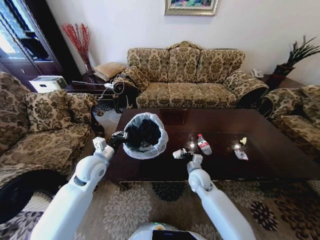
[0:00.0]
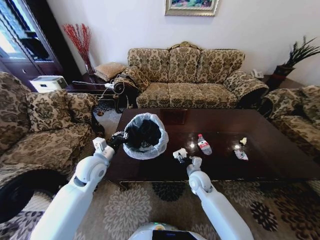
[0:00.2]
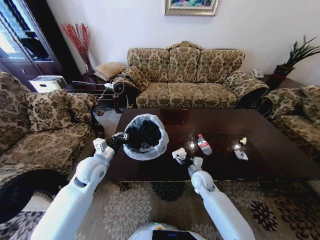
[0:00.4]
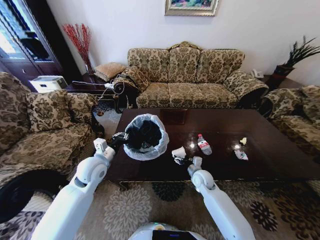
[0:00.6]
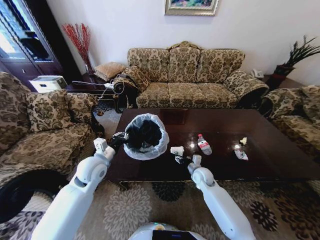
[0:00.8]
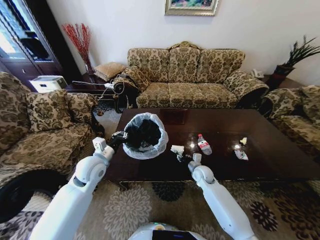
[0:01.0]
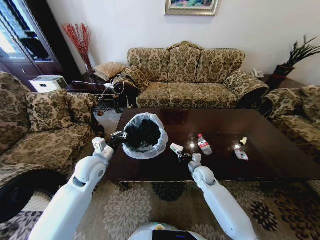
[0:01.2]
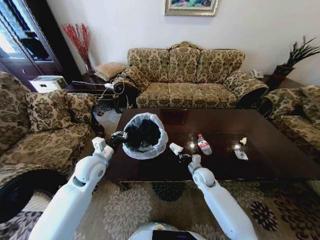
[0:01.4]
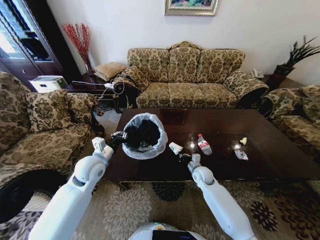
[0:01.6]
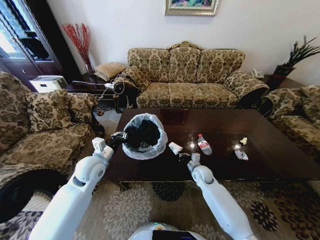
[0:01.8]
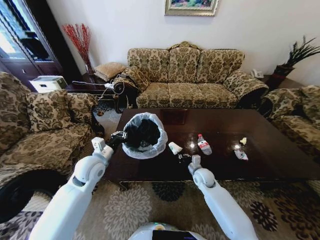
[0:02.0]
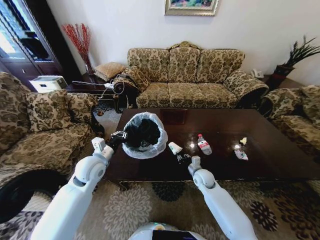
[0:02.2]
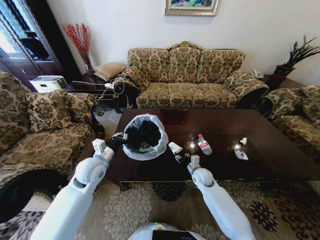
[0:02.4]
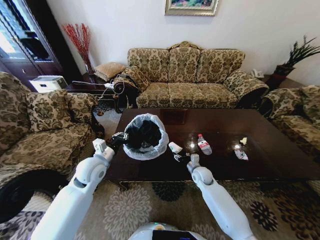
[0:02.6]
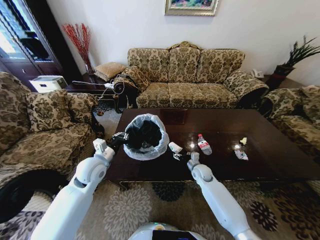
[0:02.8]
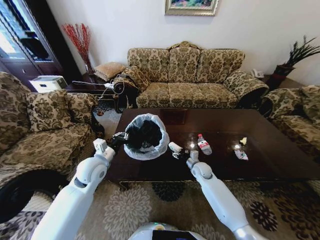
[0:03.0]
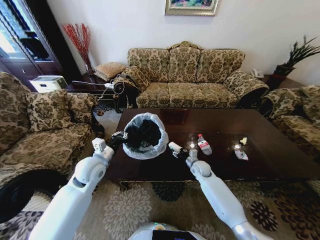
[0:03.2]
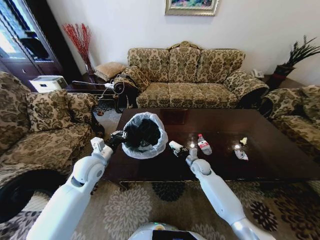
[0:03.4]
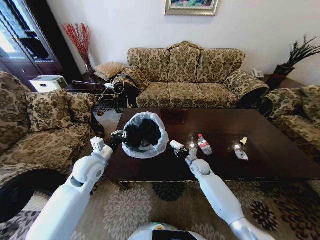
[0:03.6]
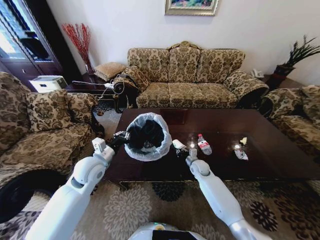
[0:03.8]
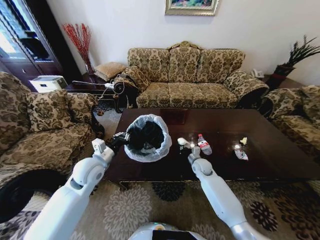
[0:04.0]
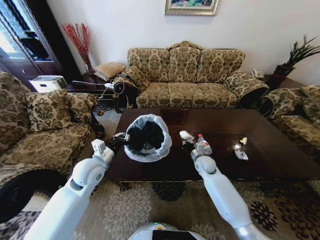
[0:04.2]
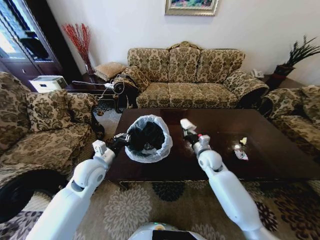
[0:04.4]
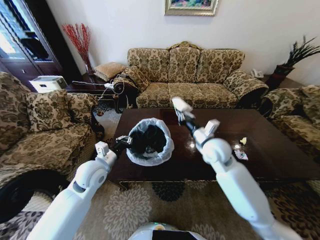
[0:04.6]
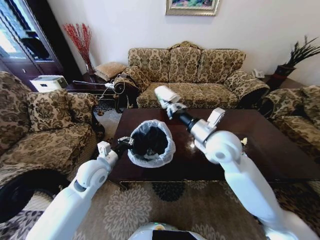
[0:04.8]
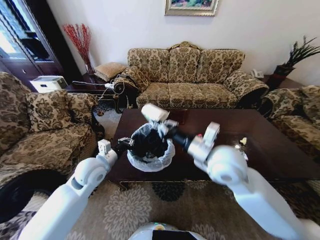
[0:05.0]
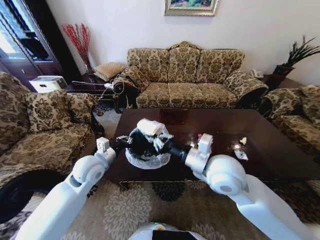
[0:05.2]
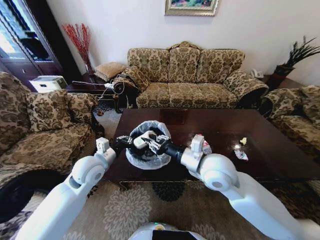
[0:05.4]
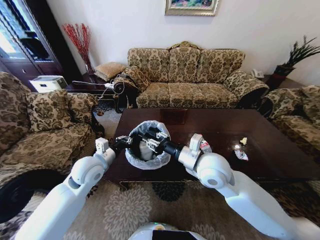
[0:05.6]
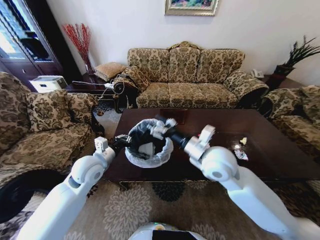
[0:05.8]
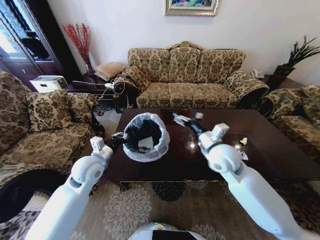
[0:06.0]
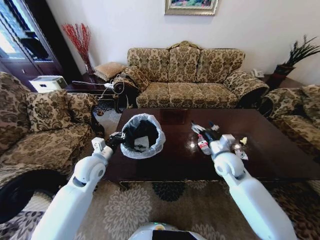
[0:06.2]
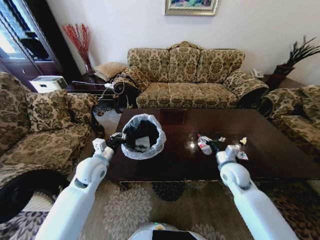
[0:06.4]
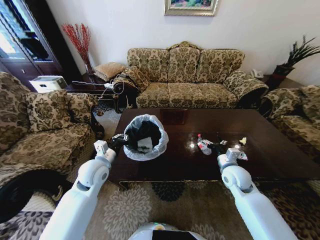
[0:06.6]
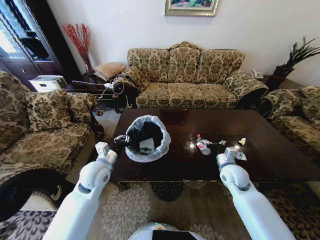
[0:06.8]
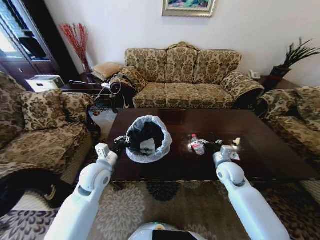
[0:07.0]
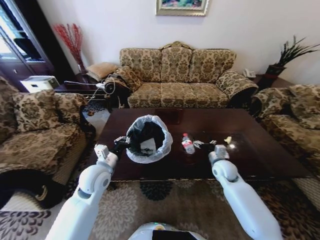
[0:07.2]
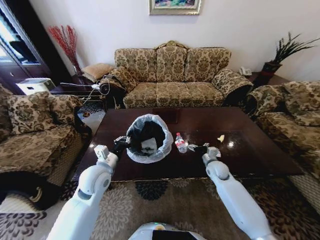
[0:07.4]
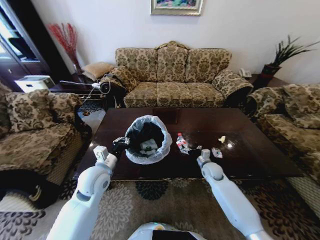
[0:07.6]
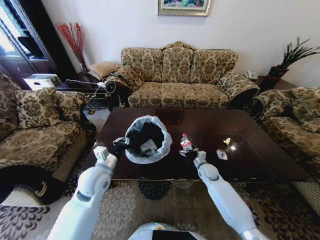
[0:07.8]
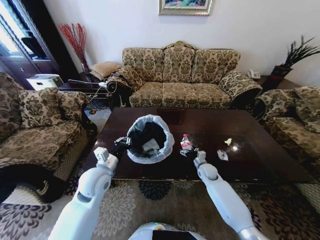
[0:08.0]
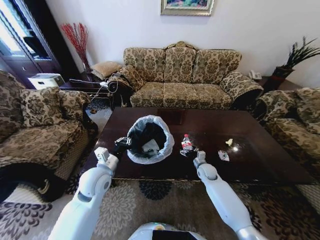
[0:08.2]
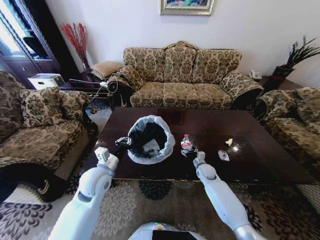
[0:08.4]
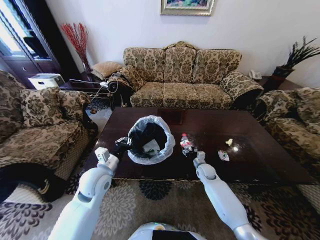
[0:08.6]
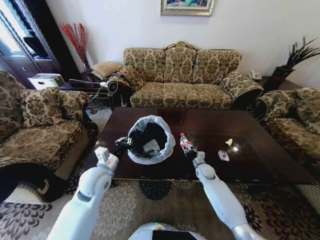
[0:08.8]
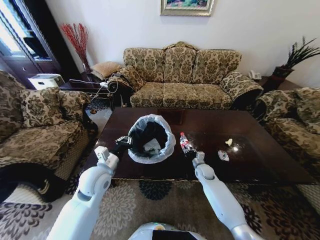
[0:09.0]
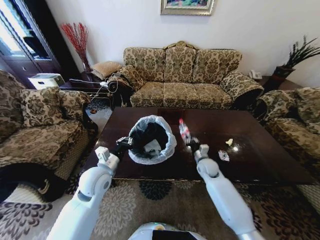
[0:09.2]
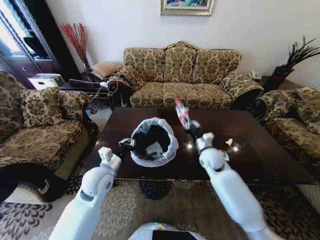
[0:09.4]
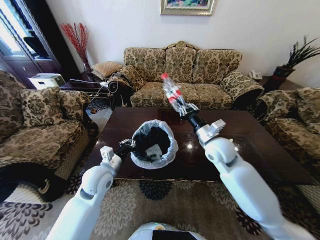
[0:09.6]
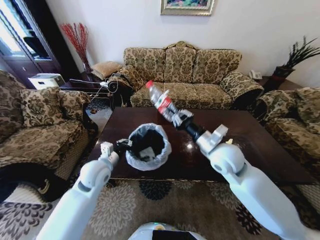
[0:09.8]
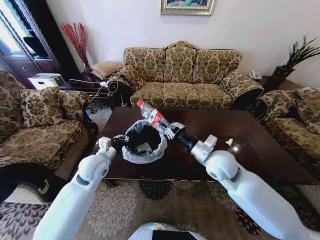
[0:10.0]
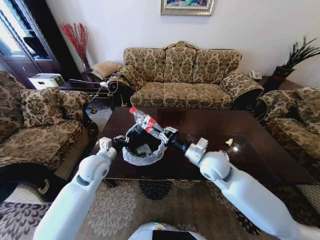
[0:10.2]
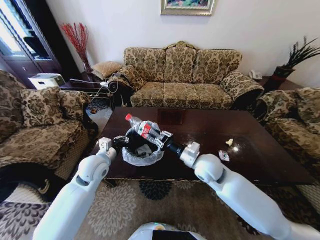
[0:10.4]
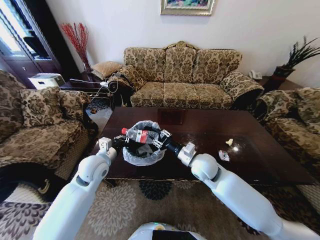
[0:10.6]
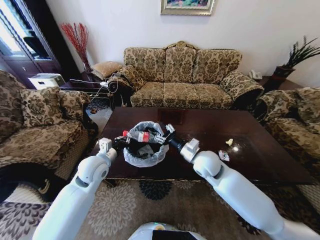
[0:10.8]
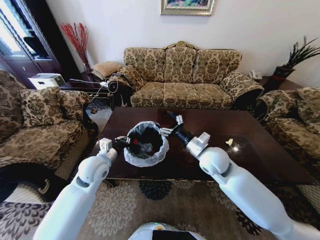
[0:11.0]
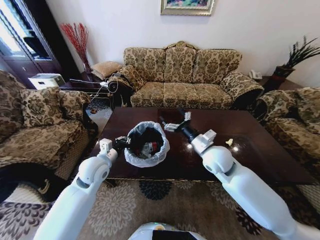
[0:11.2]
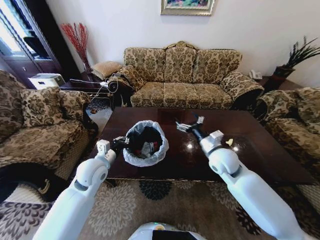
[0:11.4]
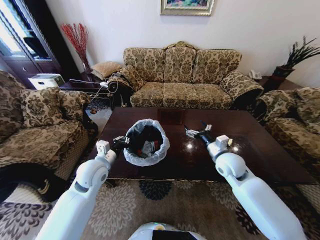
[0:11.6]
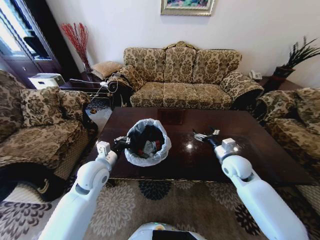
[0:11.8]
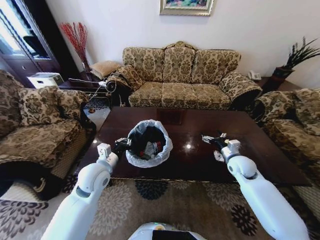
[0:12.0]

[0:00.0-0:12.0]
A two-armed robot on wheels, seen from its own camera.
Task of the whole recording: Move to the front of the table and place the trash on the table into the trash bin.
0:00.0 to 0:01.6: The right gripper shifts by roughly 5 cm, and opens and closes again.
0:01.6 to 0:03.0: The right gripper opens up.
0:03.0 to 0:04.4: The right gripper heads upward, covering roughly 15 cm, and closes its fingers.
0:04.4 to 0:06.0: The right gripper goes about 15 cm upward and backward, and opens its fingers.
0:06.0 to 0:07.6: The right gripper goes about 25 cm downward.
0:07.6 to 0:09.0: The right gripper shifts by some 5 cm, and closes up.
0:09.0 to 0:10.4: The right gripper travels upward and backward by roughly 25 cm.
0:10.4 to 0:12.0: The right gripper moves to the right, some 20 cm, and opens its fingers.

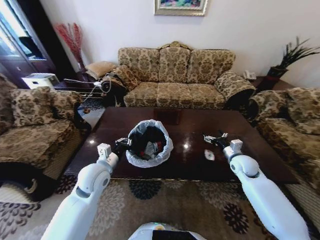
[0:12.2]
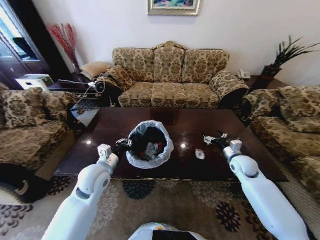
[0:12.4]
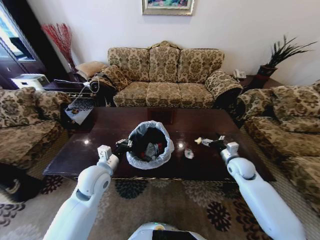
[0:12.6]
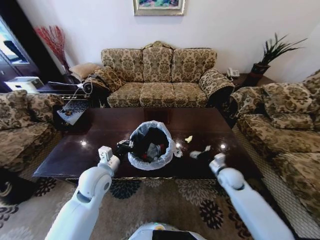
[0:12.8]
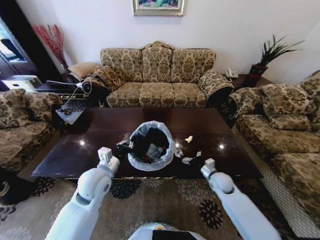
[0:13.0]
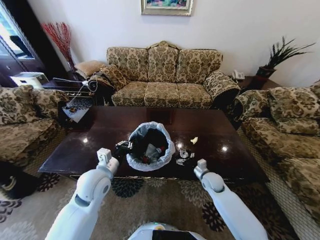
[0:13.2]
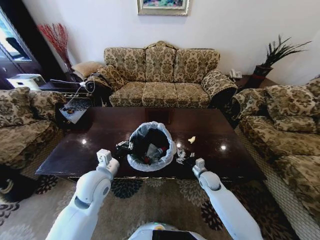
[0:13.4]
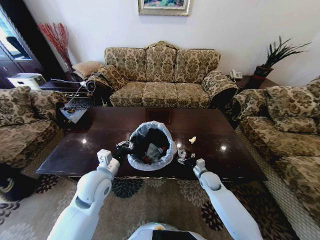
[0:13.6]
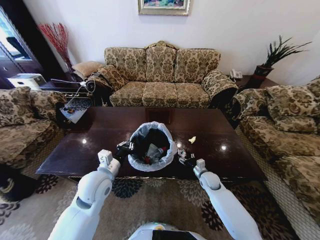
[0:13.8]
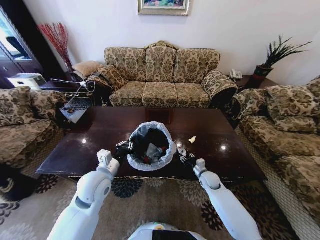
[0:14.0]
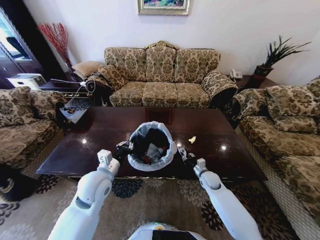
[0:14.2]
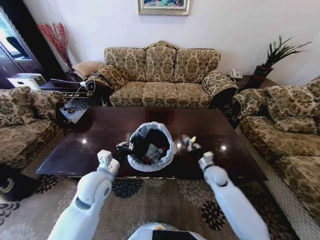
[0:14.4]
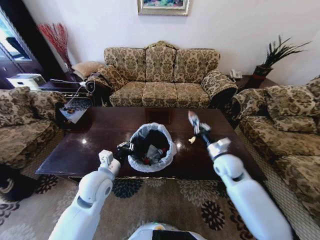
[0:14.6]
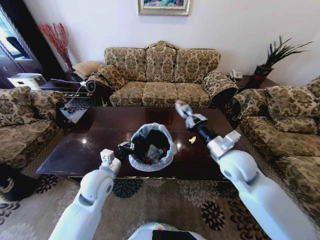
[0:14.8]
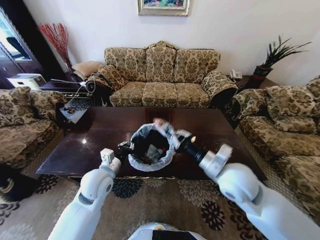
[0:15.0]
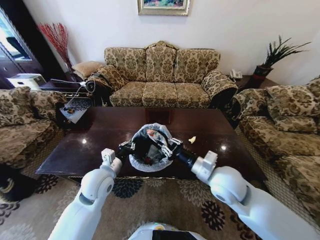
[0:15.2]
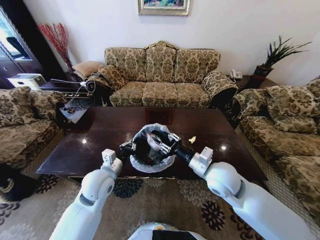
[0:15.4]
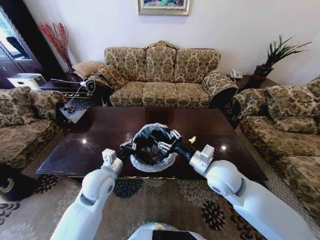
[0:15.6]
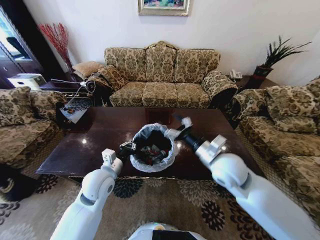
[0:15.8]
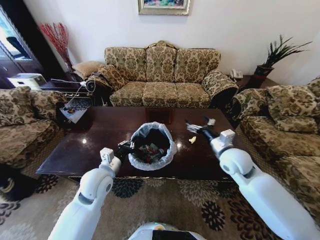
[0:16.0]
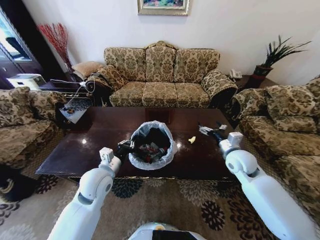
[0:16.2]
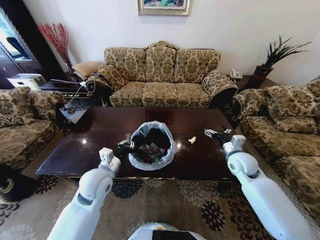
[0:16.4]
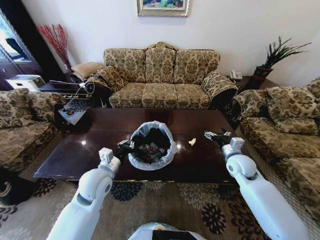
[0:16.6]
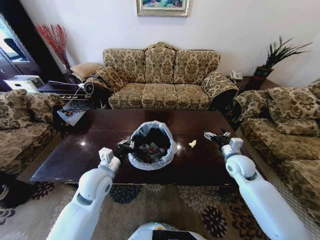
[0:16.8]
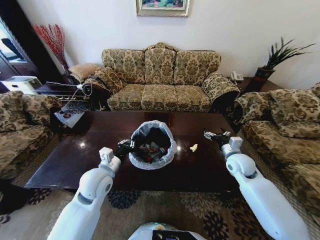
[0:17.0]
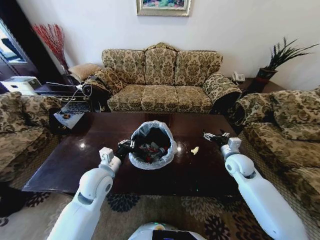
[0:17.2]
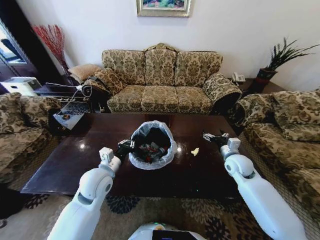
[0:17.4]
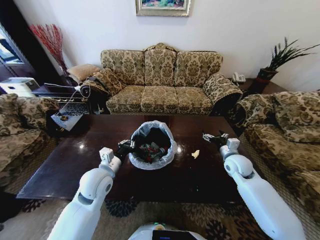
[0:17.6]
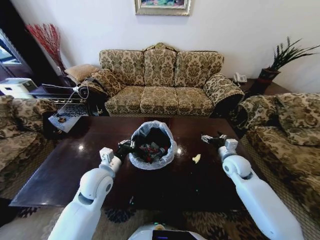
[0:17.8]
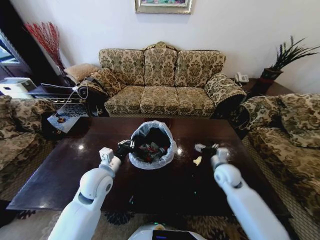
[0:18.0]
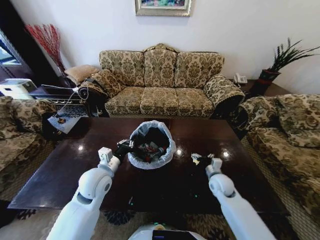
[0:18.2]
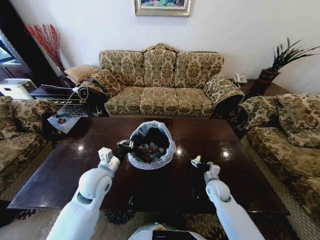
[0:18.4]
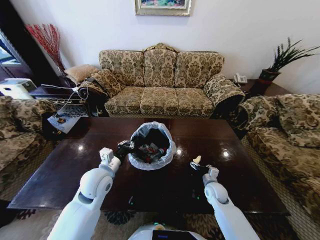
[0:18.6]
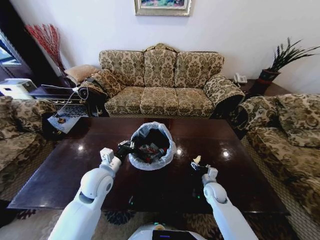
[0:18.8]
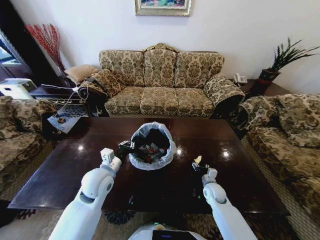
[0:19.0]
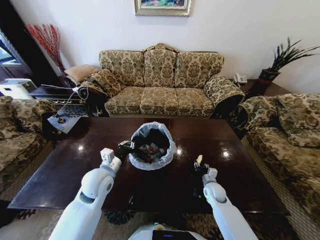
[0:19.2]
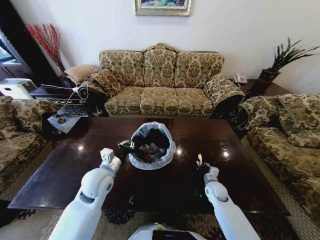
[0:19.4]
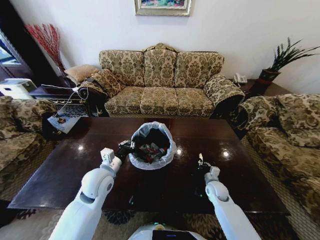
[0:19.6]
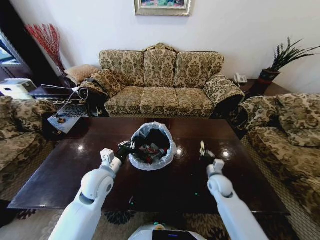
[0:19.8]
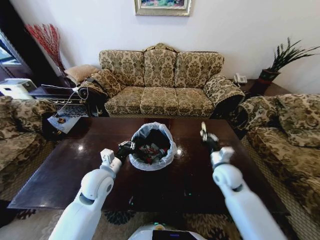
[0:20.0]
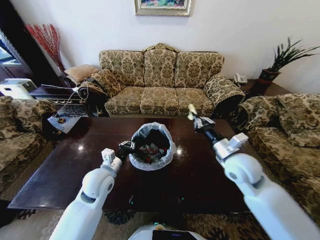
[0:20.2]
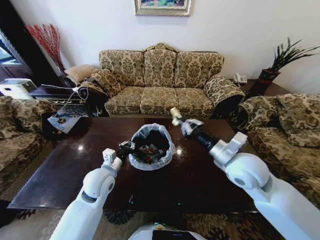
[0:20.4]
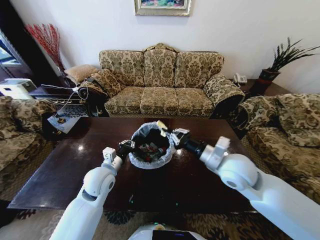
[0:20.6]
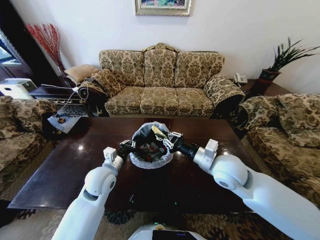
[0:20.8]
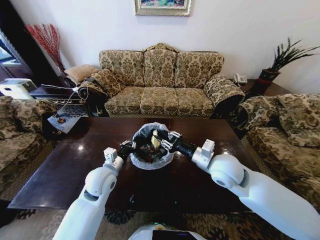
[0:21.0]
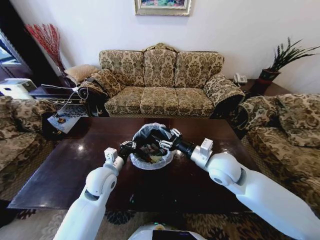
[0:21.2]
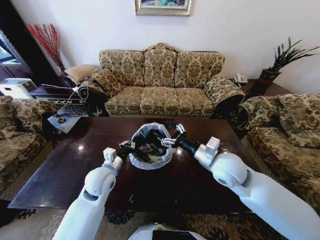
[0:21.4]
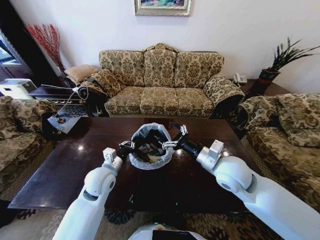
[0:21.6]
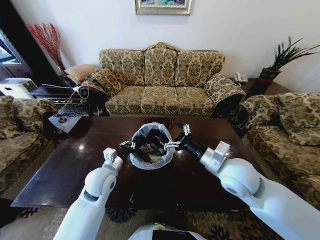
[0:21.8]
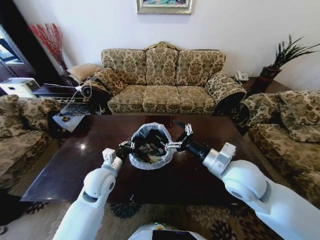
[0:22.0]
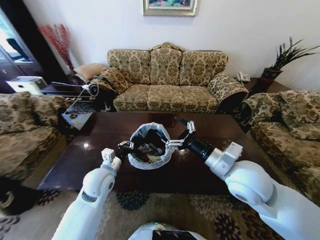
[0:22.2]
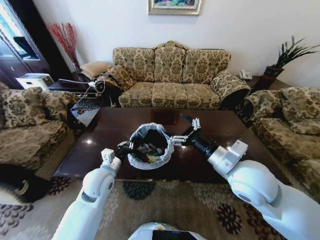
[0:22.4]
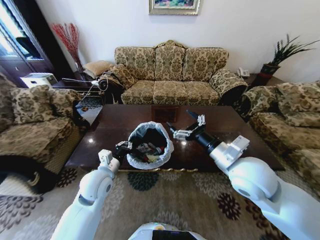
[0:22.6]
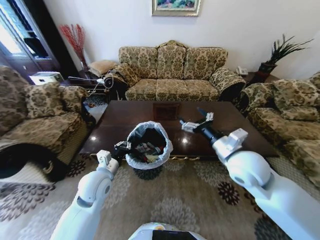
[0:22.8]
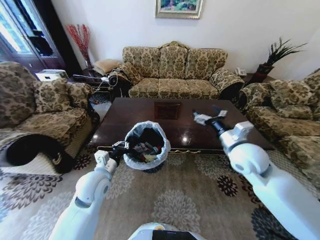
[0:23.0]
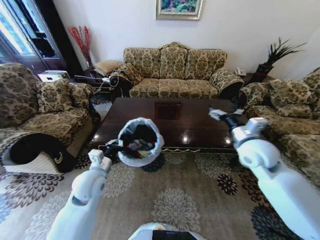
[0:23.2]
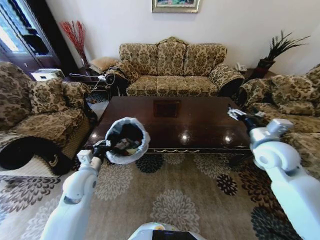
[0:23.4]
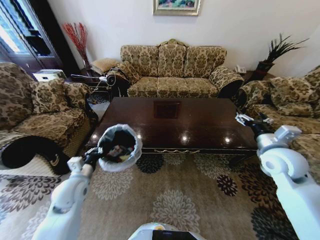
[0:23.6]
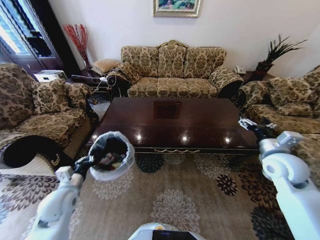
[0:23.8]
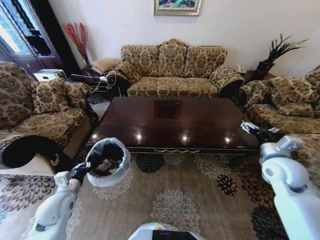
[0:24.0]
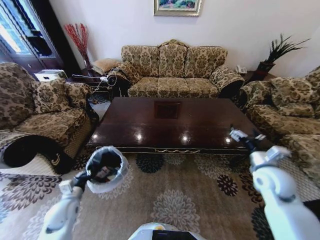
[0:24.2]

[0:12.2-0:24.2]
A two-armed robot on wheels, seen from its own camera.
Task of the whole recording: Move to the front of the table and place the trash on the table into the trash bin.
0:12.2 to 0:13.8: The right gripper shifts approximately 20 cm downward and to the left.
0:13.8 to 0:15.2: The right gripper moves upward and backward, approximately 30 cm, and closes.
0:15.2 to 0:16.6: The right gripper heads to the right, forward and downward, covering roughly 20 cm, and opens up.
0:16.6 to 0:18.2: The right gripper moves downward and to the left, approximately 15 cm.
0:18.2 to 0:19.8: The right gripper closes.
0:19.8 to 0:21.2: The right gripper shifts about 20 cm upward, and opens its fingers.
0:21.2 to 0:22.6: The right gripper shifts roughly 10 cm upward and backward, and opens its fingers.
0:22.6 to 0:24.2: The left gripper heads to the left, downward and backward, covering some 25 cm. The right gripper goes some 20 cm to the right and downward.
